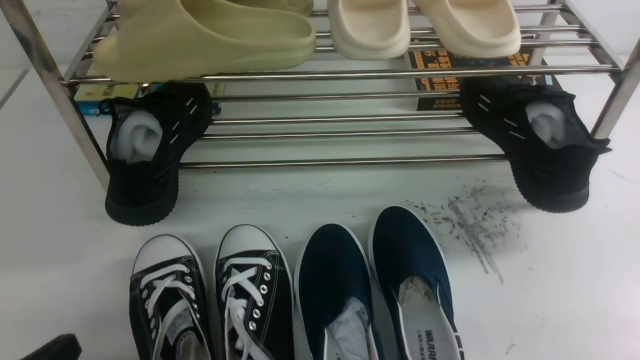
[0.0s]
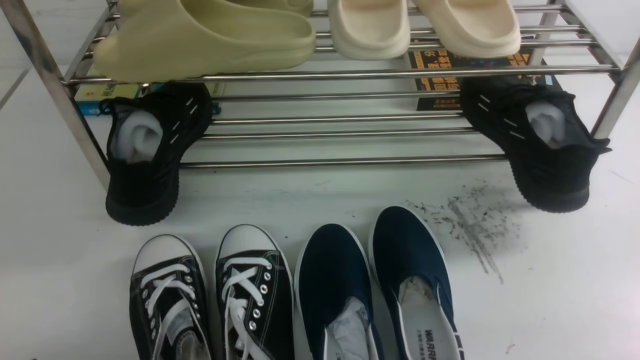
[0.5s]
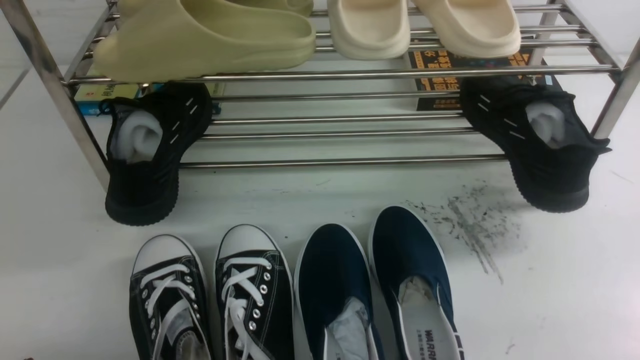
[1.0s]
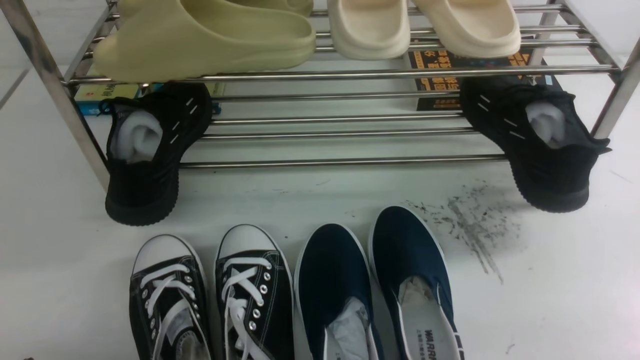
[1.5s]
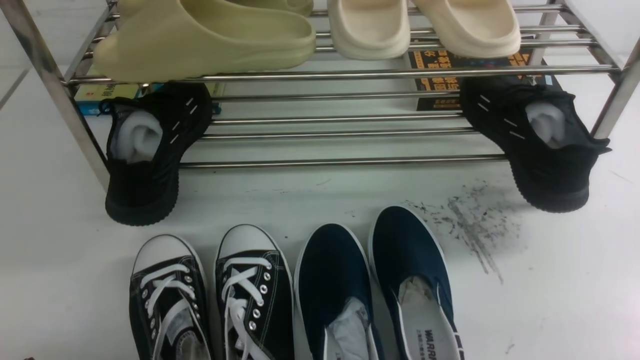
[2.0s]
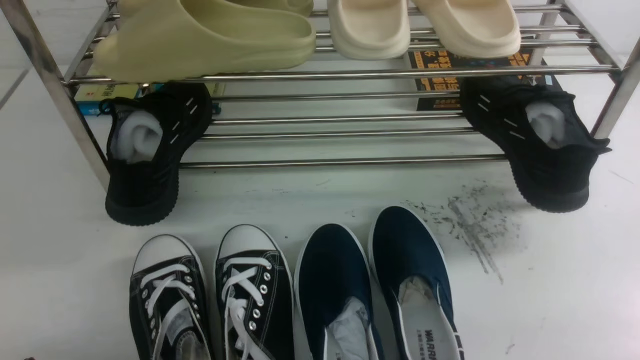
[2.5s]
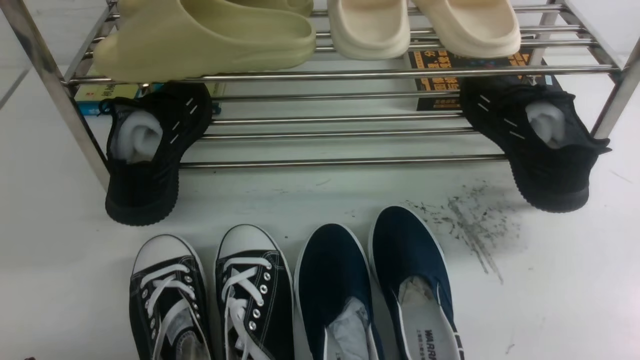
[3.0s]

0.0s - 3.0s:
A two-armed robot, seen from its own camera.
1.5s - 3.0s: Neither gripper changes place.

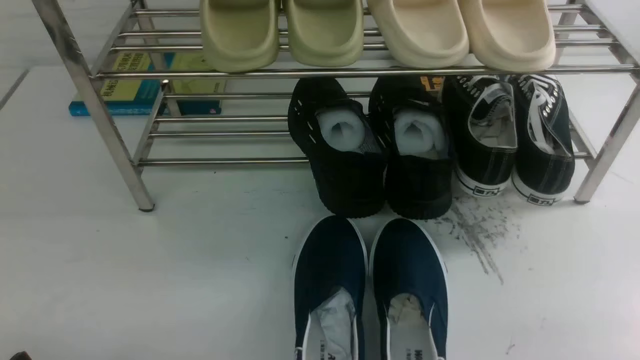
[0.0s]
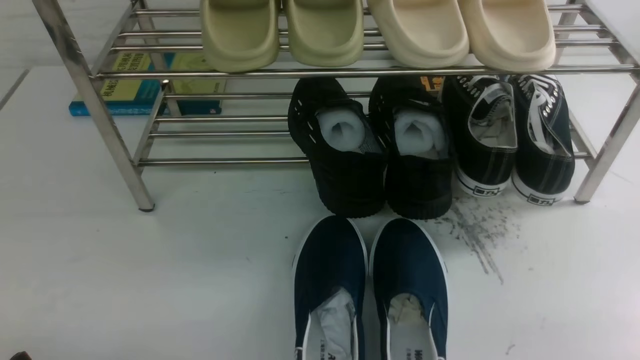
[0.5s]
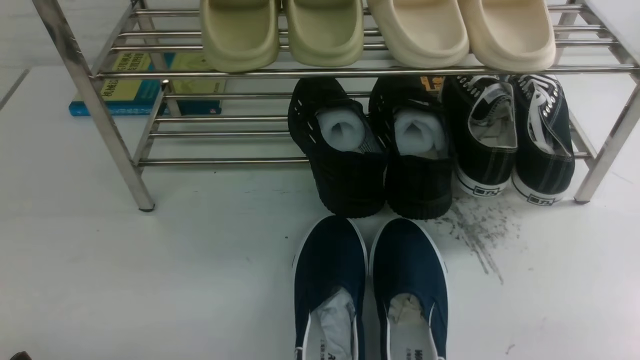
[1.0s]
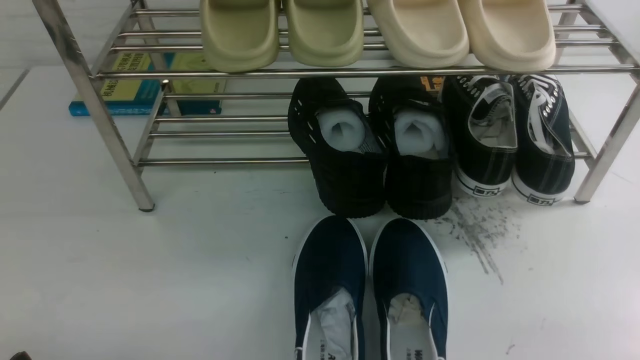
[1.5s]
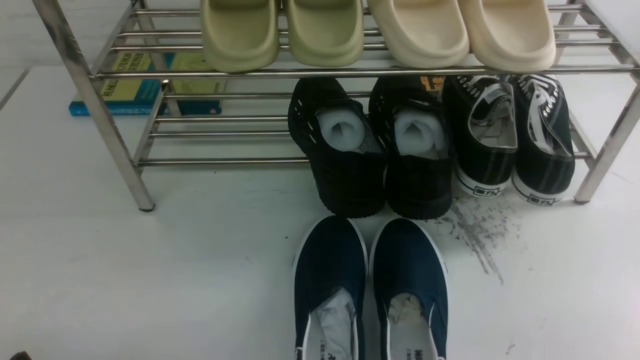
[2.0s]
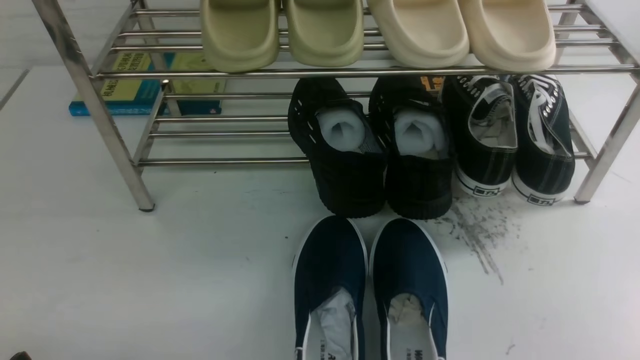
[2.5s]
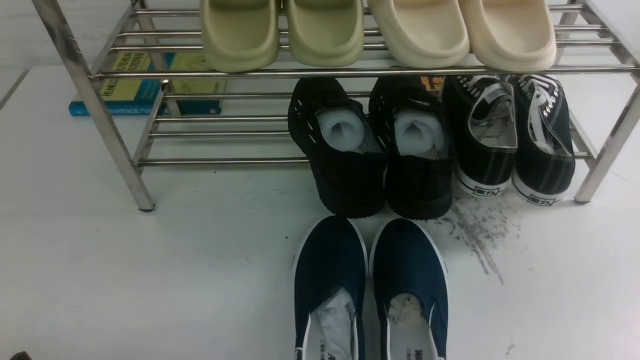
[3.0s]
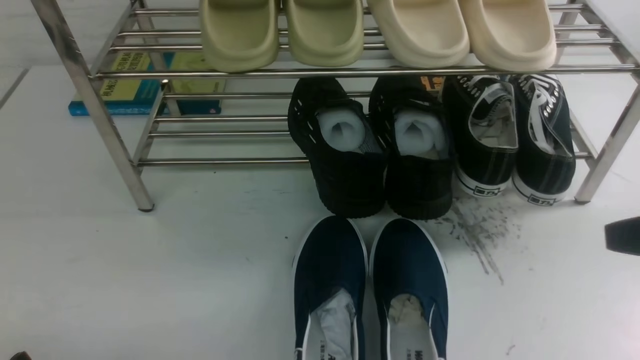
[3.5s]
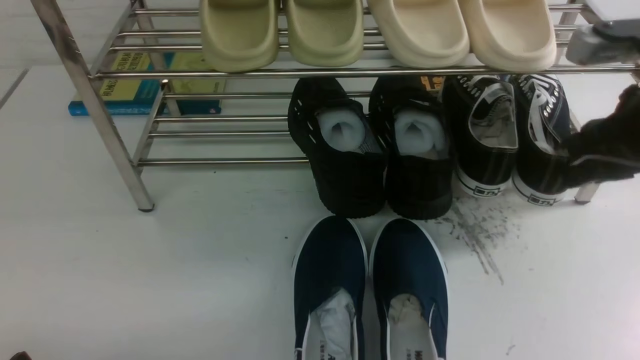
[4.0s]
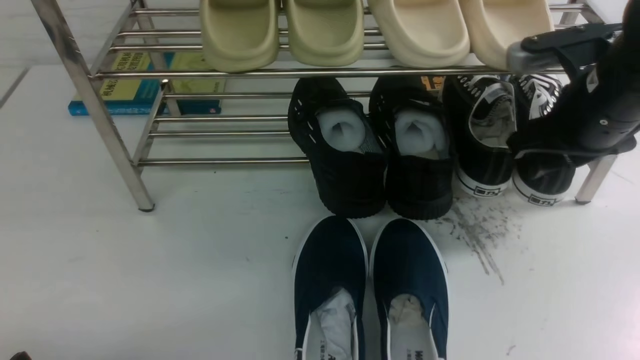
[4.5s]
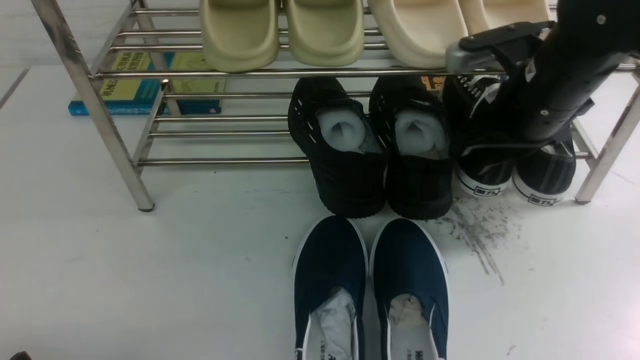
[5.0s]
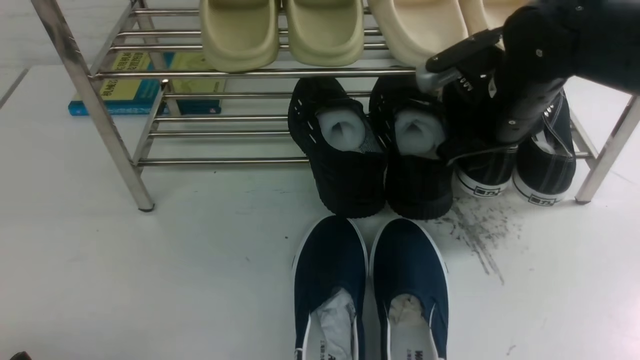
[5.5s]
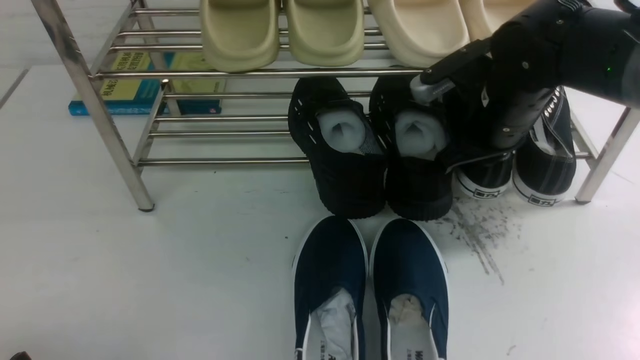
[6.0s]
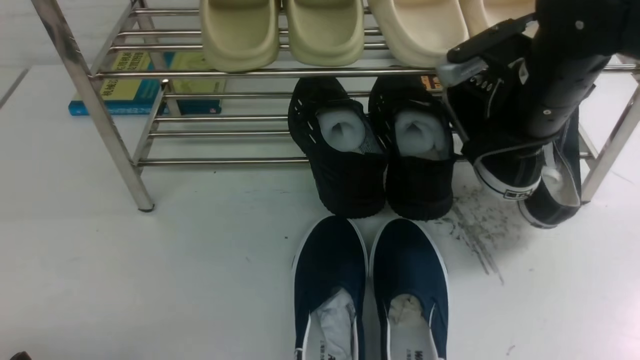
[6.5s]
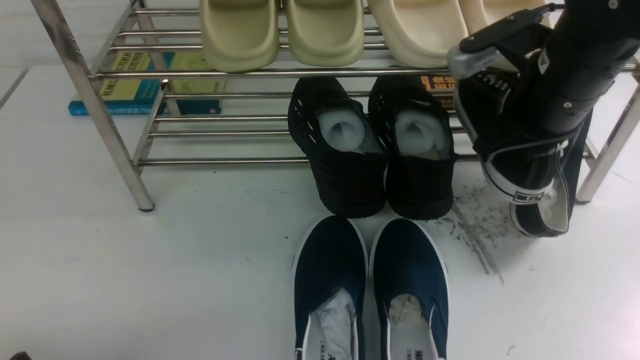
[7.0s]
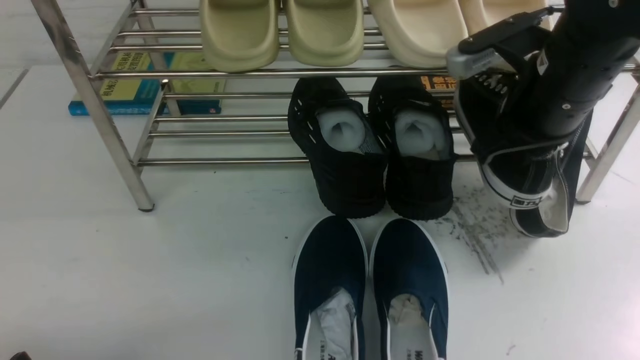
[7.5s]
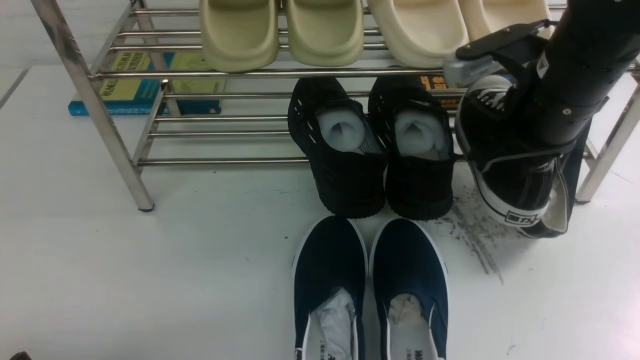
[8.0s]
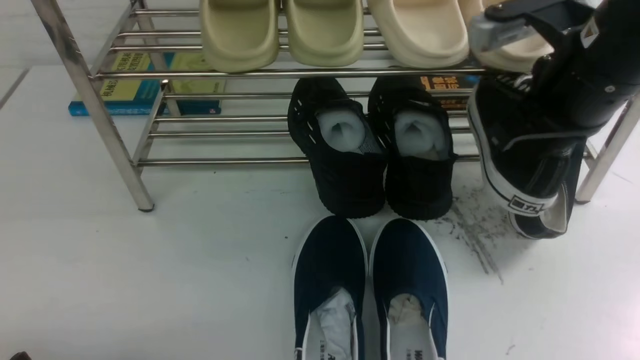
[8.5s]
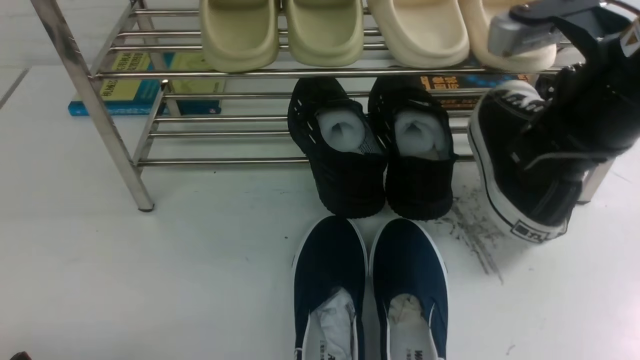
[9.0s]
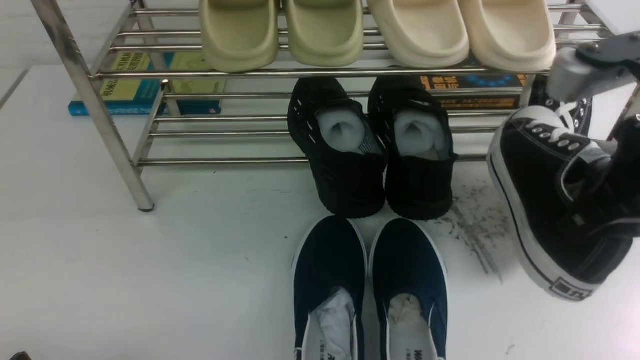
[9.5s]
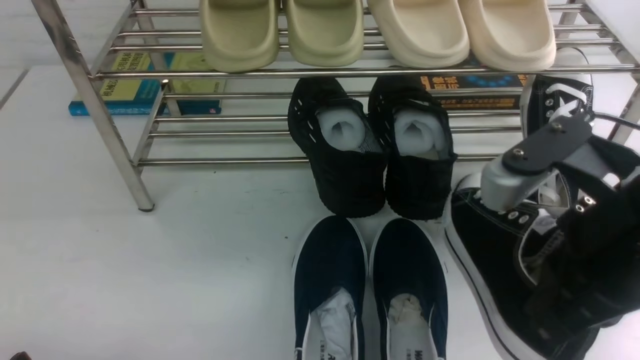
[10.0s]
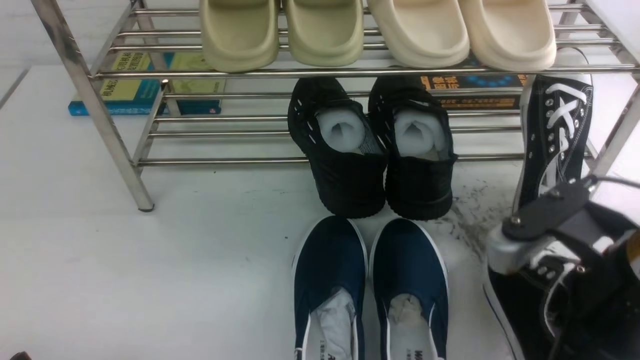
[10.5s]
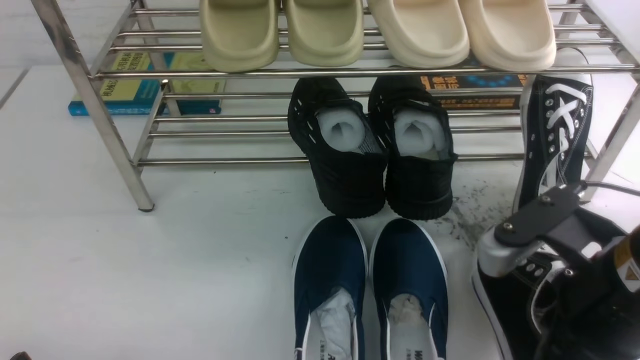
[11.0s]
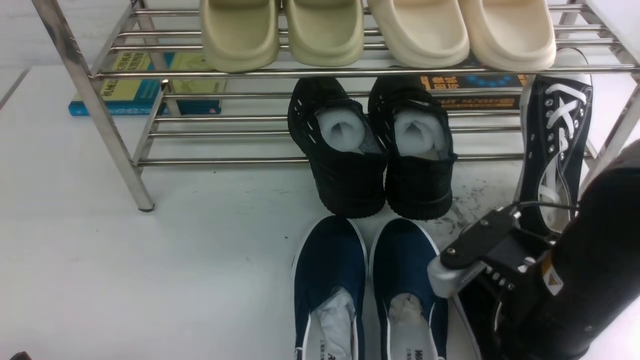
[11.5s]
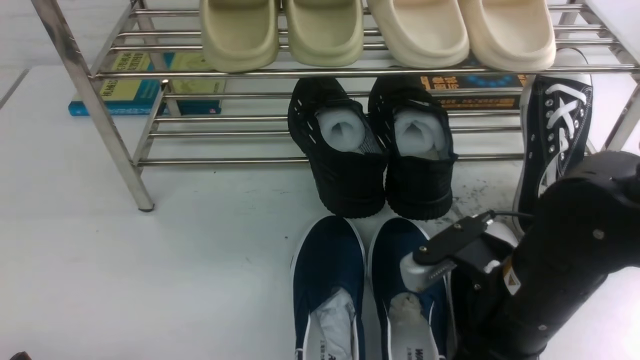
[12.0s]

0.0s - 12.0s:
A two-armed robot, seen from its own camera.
Step, 0.0s - 6.5s: use the right arm to clamp a shoe on the right side of the shoe rack.
2.0s - 4.0s: The right gripper travels forward and upward by approximately 25 cm.
4.0s - 6.0s: The right gripper is displaced forward, to the left and downward by roughly 15 cm, and closes its fingers.
6.0s - 8.0s: The right gripper shifts roughly 10 cm upward and backward.
8.0s - 10.0s: The right gripper heads backward, covering approximately 15 cm.
10.0s - 12.0s: The right gripper travels downward by roughly 10 cm.

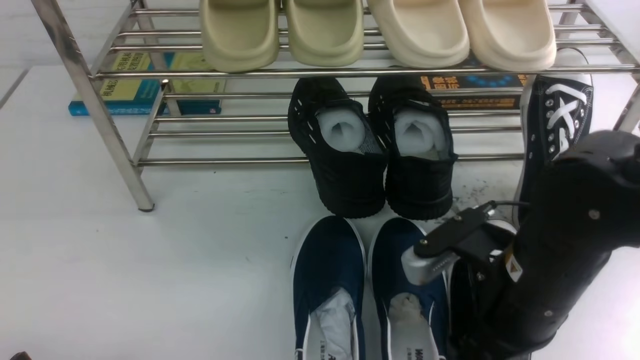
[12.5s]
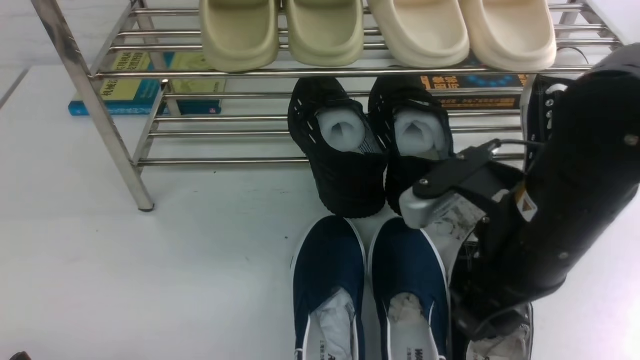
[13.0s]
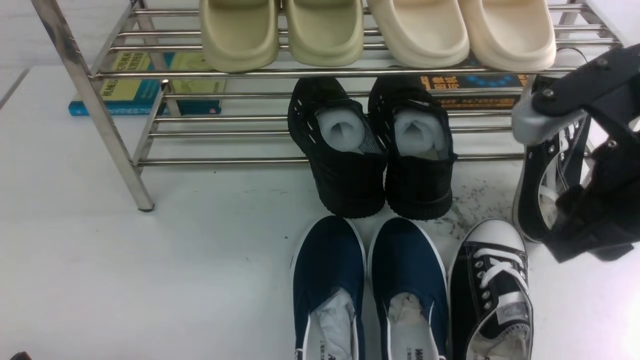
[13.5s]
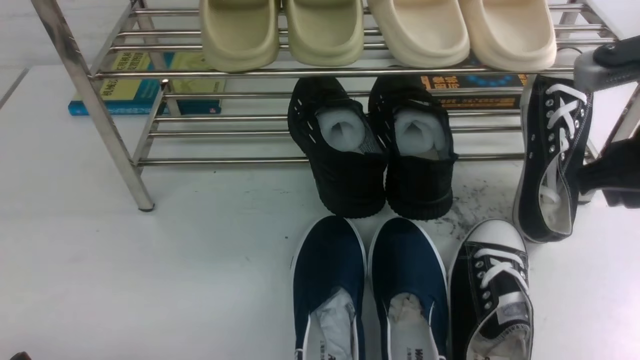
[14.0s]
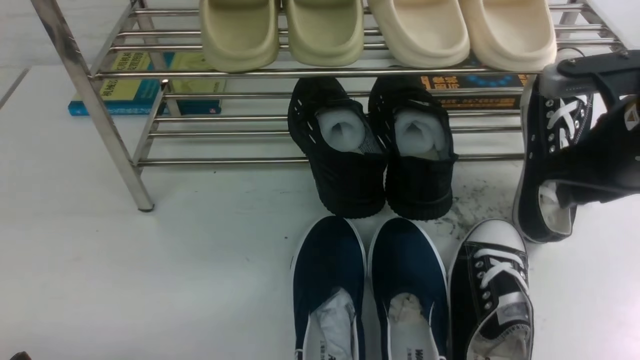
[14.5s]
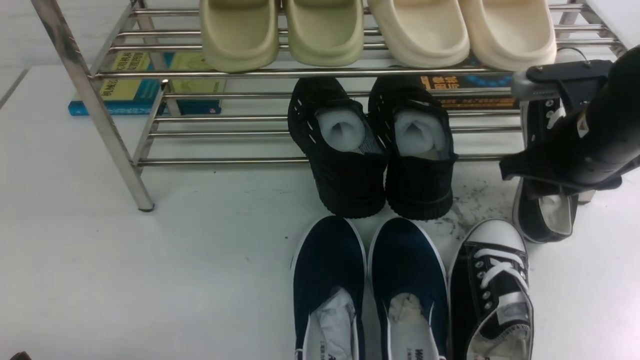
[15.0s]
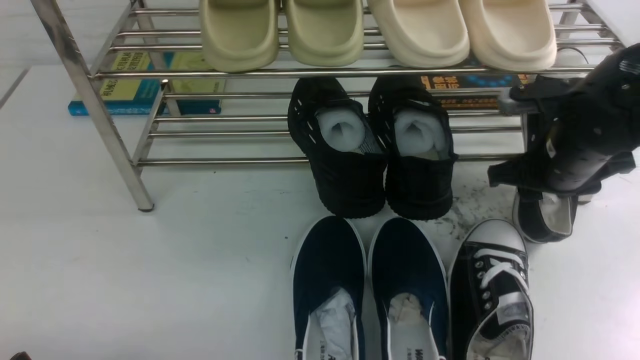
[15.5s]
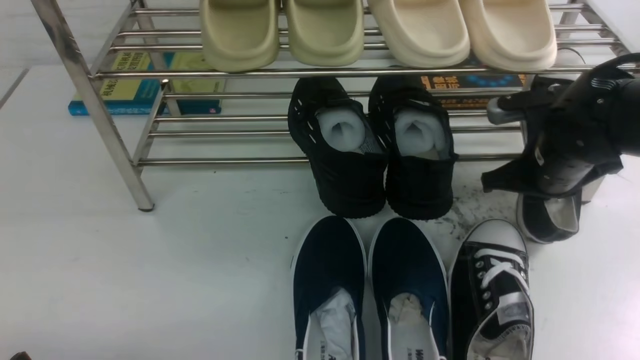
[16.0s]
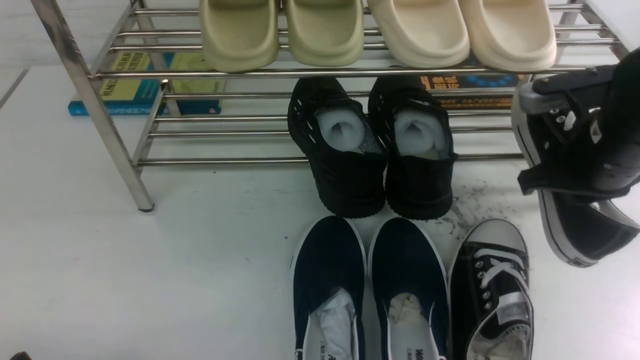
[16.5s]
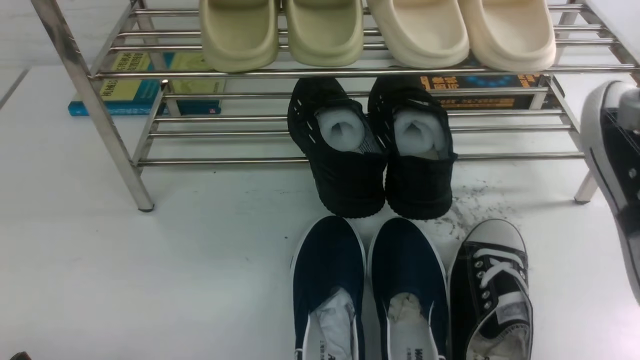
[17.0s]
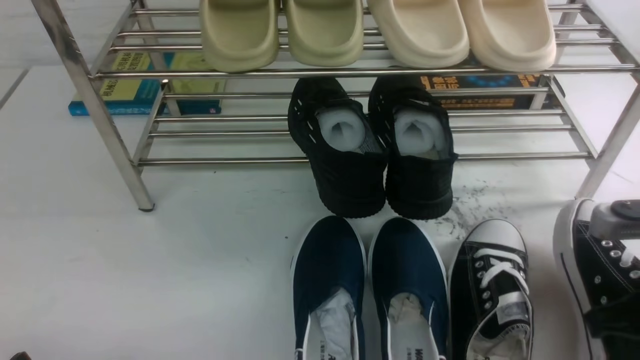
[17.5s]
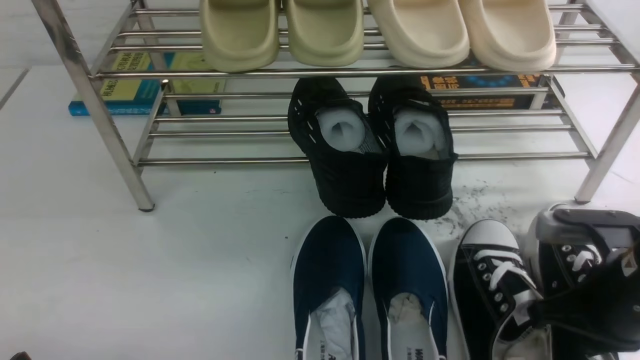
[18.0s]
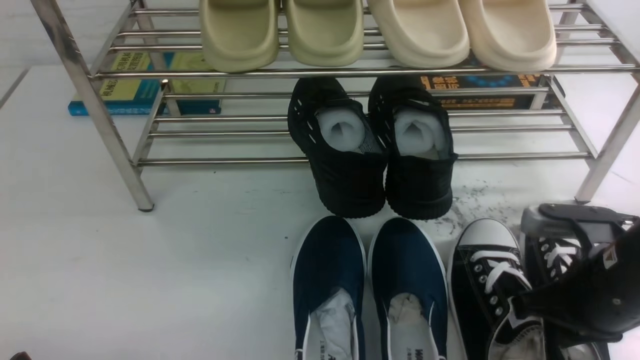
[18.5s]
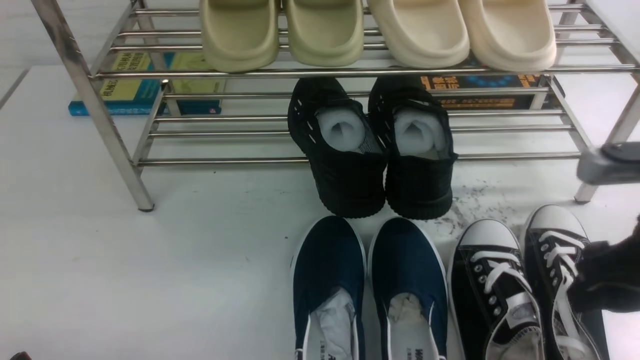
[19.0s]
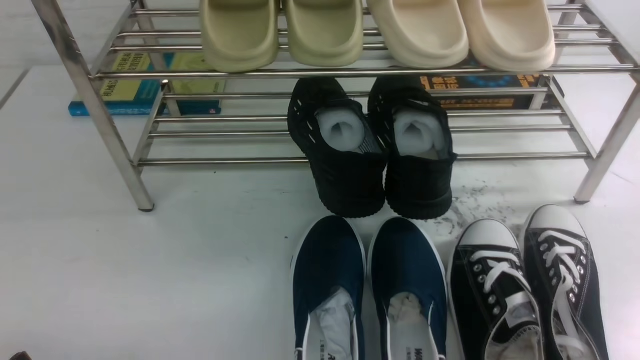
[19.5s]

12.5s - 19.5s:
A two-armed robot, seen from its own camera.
Step, 13.0s - 16.0s: use the right arm to clamp a shoe on the right side of the shoe rack.
Step, 16.5s - 19.0s: use the right arm to take out the clamped shoe from the shoe rack and put it down.
12.5s - 14.5s: The right gripper travels to the right, forward and upward by approximately 15 cm.
14.5s - 16.0s: The right gripper is displaced downward and forward by approximately 10 cm, and closes its fingers.
16.0s - 17.5s: The right gripper moves backward, about 15 cm.
17.5s - 19.5s: The right gripper shifts about 15 cm backward and upward, and opens up.
